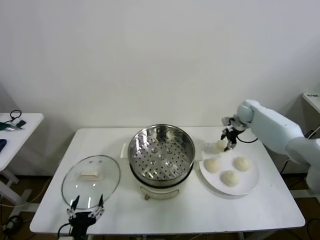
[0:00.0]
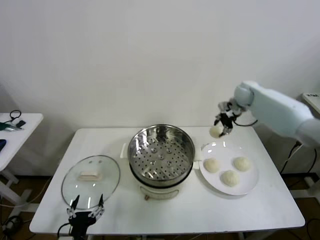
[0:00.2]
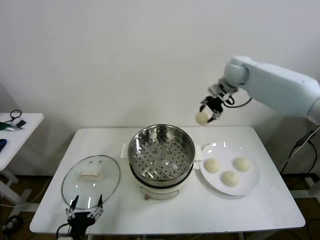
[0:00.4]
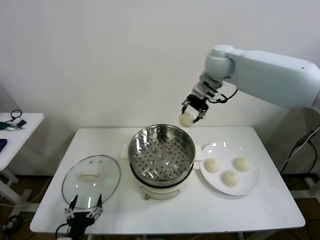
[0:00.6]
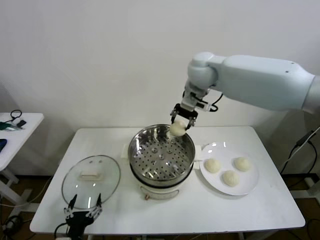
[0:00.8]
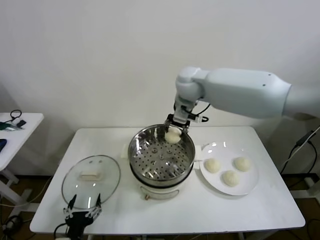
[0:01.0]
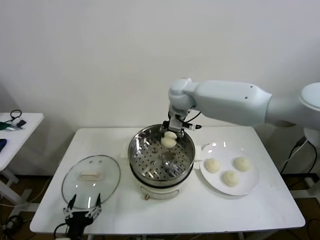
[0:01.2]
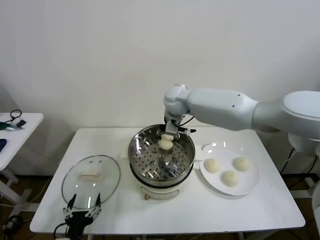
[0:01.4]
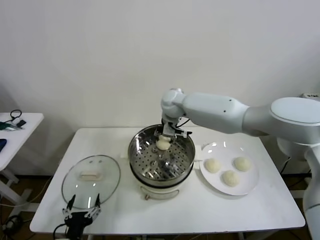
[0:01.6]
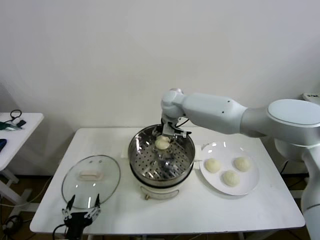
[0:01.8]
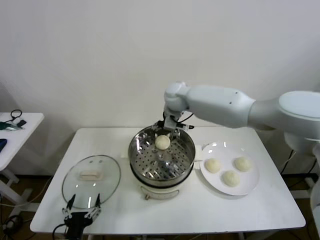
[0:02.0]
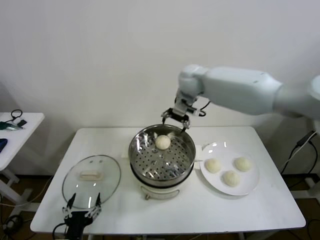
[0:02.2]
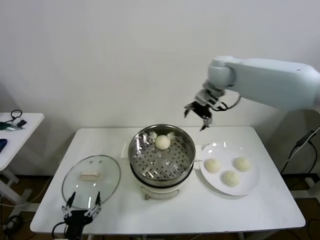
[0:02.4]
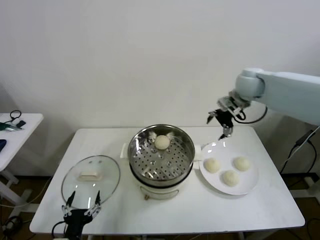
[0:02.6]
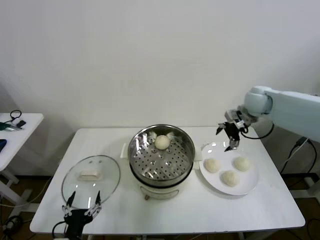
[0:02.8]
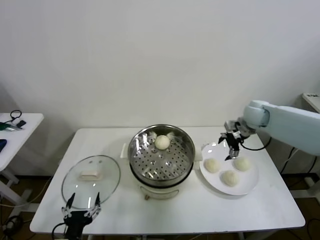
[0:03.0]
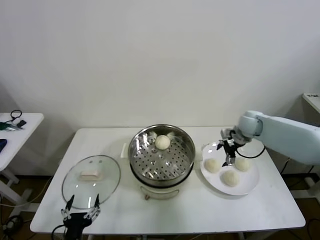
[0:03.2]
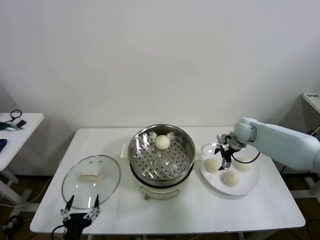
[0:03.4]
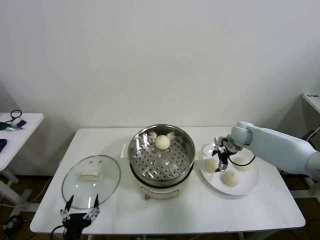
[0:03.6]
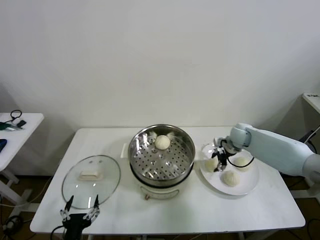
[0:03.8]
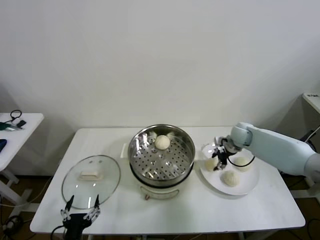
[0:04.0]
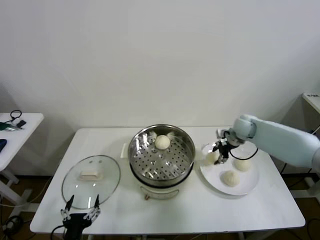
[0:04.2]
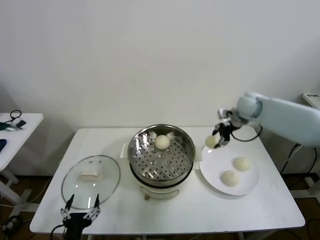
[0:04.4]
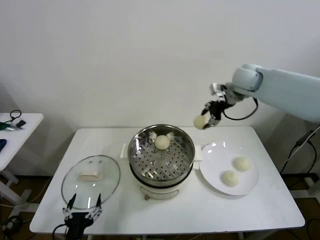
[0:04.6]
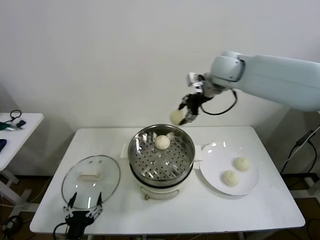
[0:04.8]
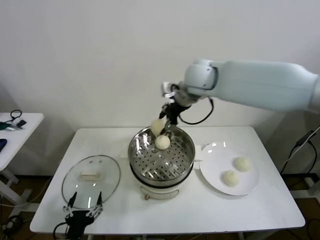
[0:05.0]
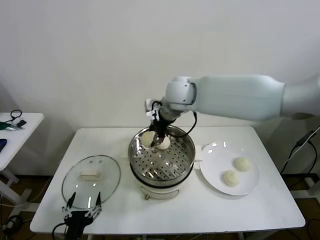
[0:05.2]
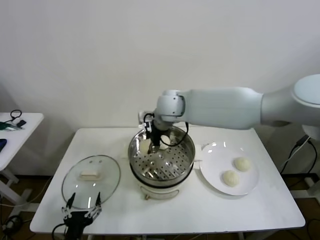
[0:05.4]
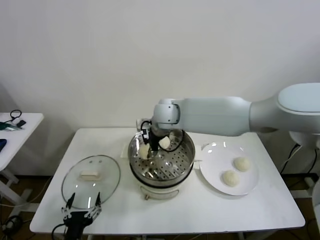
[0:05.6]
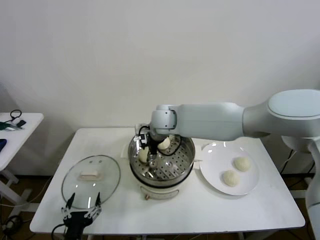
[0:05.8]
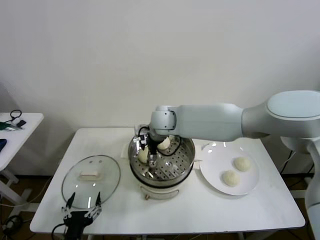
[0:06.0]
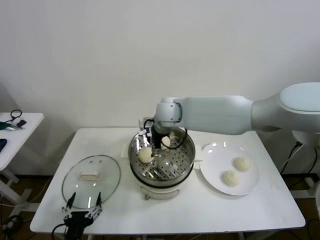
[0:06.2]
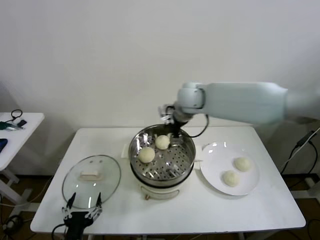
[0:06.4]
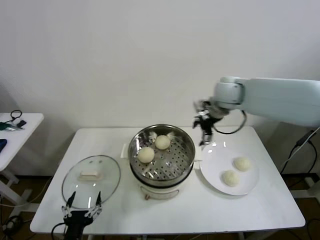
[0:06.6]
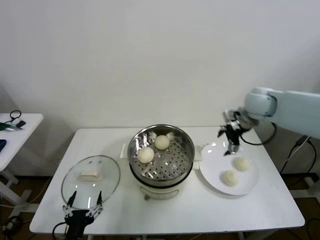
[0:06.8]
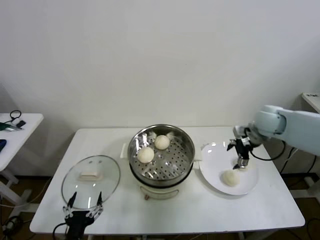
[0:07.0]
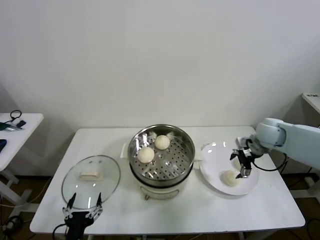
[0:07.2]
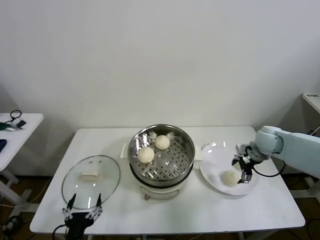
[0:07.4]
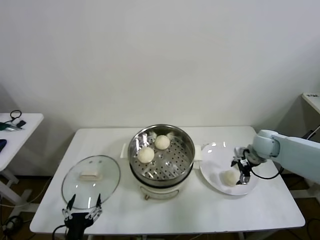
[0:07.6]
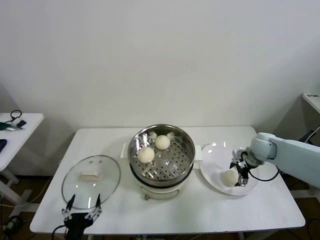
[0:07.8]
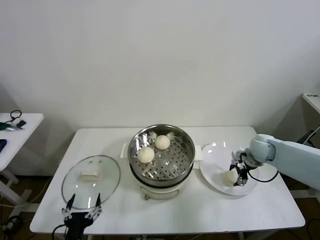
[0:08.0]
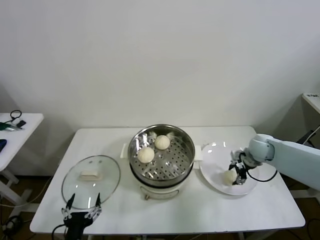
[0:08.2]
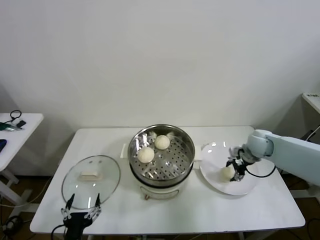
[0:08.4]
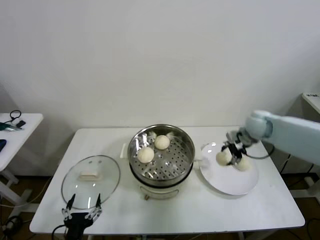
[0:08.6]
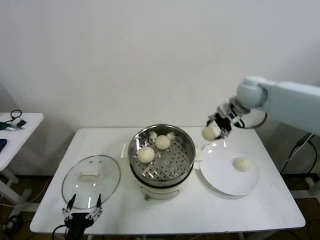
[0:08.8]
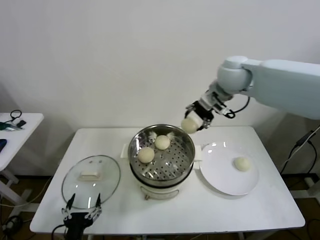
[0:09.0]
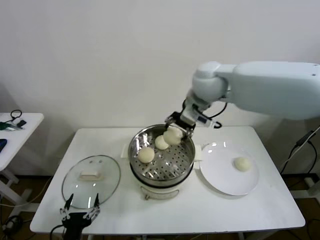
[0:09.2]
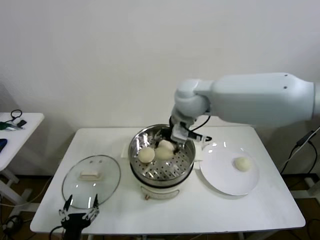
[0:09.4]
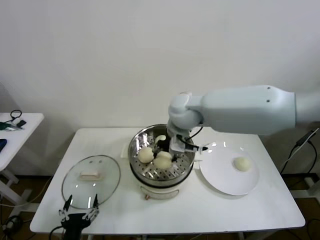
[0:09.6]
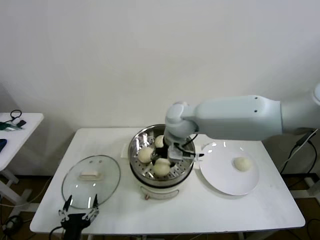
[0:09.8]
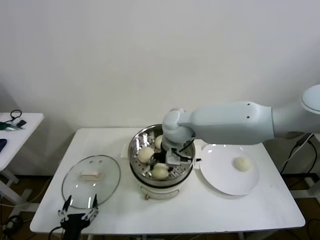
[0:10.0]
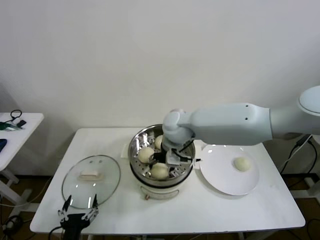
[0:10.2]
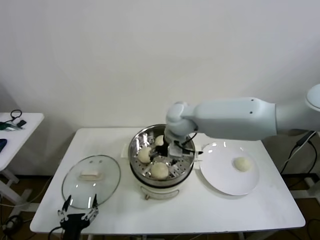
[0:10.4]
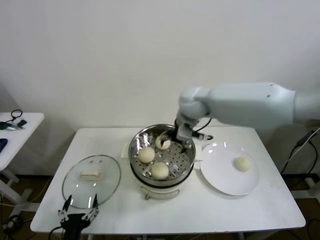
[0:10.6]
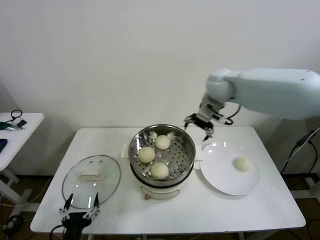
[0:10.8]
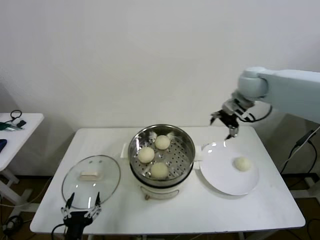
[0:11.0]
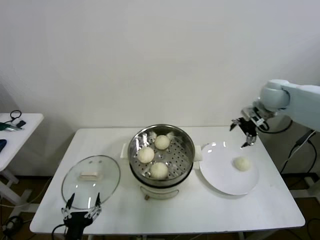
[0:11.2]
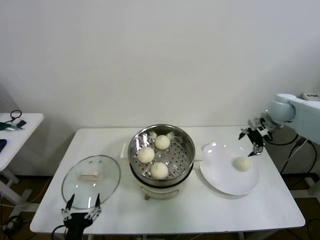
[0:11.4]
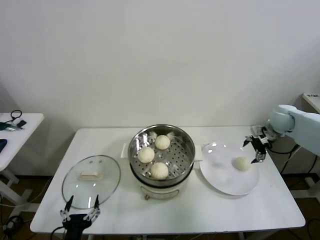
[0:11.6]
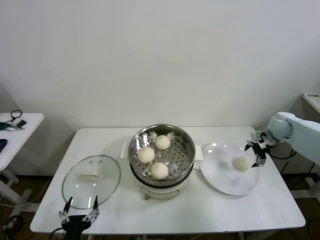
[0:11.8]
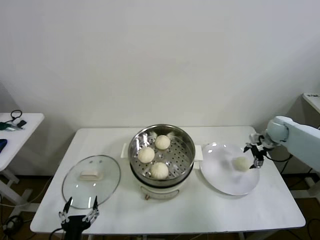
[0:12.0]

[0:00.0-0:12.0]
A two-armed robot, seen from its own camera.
Task of the whole recording: take steamed baozi put them in steamer then cover it.
Step, 0:00.0 to 0:02.0: Place the baozi on the steamer with right gripper.
Step, 0:02.2 to 0:04.0: Grasp the baozi in the plate with right gripper.
Step, 0:04.2 to 0:06.0: Place the baozi on the steamer with right gripper.
Step, 0:06.4 to 0:08.2: Grasp the baozi in the plate with right gripper.
Step, 0:08.6 to 0:10.2: Place the baozi on the steamer with right gripper.
0:00.0 to 0:01.6: The right gripper moves to the left, roughly 30 cm.
0:01.6 to 0:03.0: The right gripper shifts approximately 30 cm to the right, and opens its fingers.
0:03.0 to 0:04.4: The right gripper goes about 10 cm upward, and closes up.
0:04.4 to 0:06.0: The right gripper moves to the left, some 30 cm, and opens.
0:06.0 to 0:07.6: The right gripper heads to the right, covering about 35 cm.
0:07.6 to 0:09.0: The right gripper is displaced upward and to the left by roughly 30 cm, and closes its fingers.
0:09.0 to 0:10.4: The right gripper goes some 20 cm downward and to the left, and opens up.
0:10.4 to 0:12.0: The right gripper heads to the right, covering roughly 40 cm.

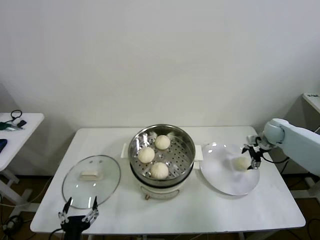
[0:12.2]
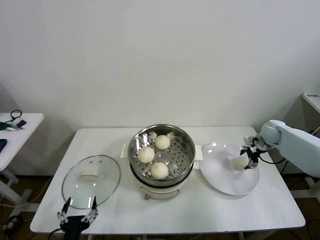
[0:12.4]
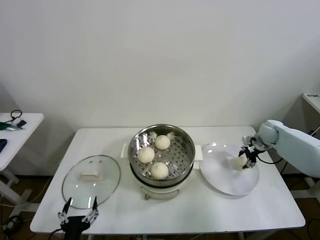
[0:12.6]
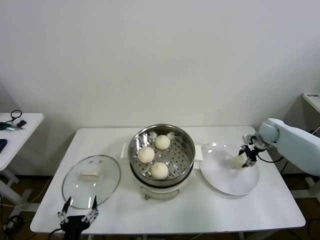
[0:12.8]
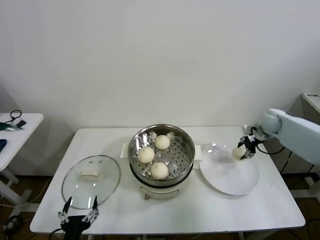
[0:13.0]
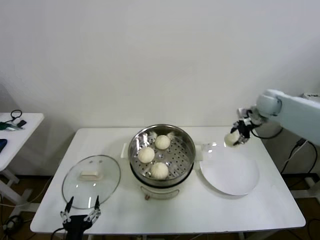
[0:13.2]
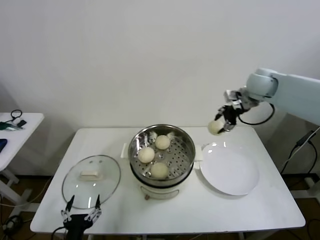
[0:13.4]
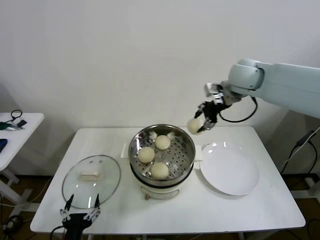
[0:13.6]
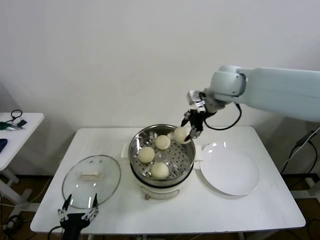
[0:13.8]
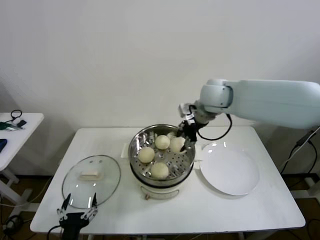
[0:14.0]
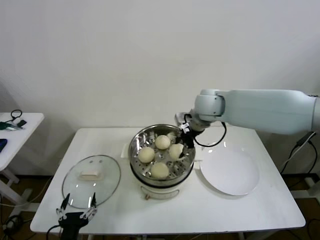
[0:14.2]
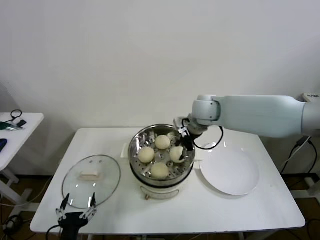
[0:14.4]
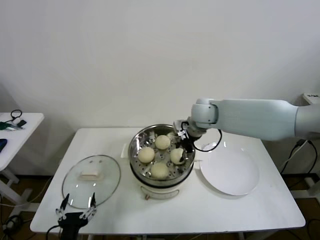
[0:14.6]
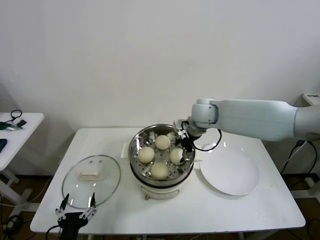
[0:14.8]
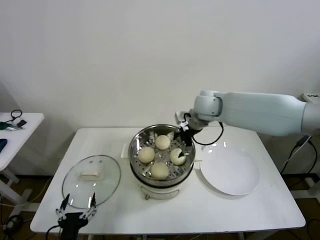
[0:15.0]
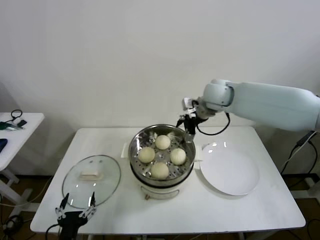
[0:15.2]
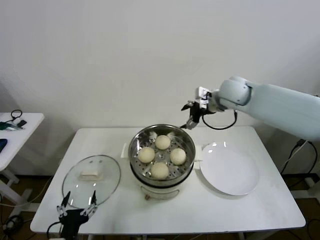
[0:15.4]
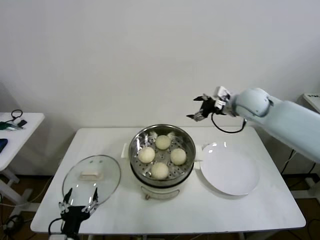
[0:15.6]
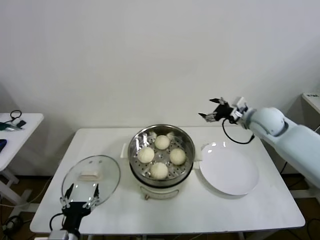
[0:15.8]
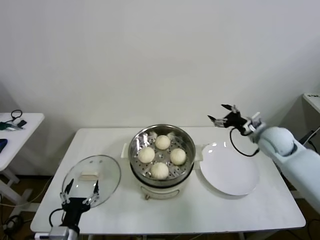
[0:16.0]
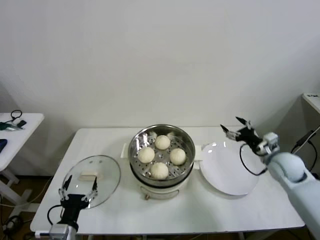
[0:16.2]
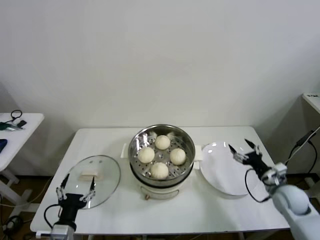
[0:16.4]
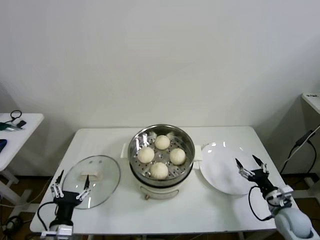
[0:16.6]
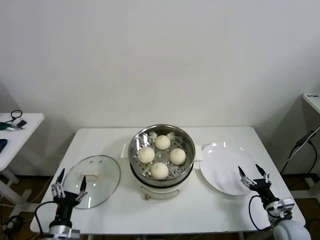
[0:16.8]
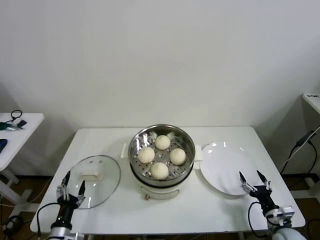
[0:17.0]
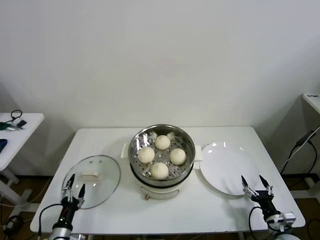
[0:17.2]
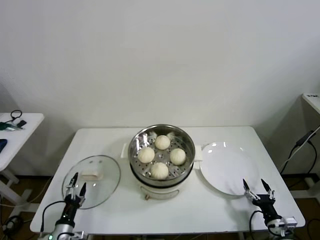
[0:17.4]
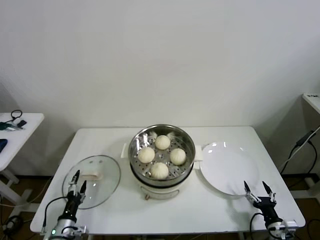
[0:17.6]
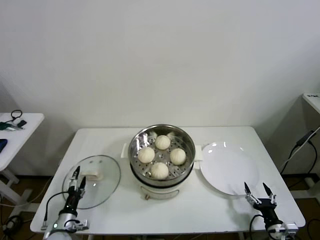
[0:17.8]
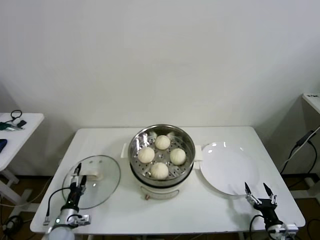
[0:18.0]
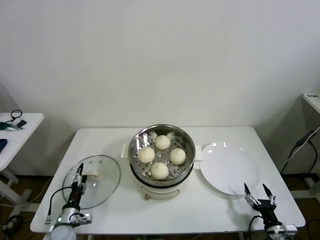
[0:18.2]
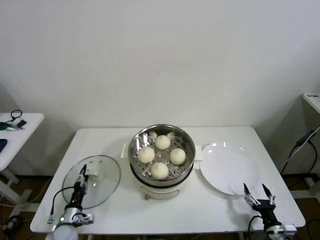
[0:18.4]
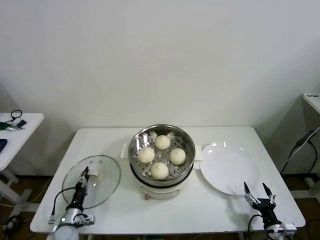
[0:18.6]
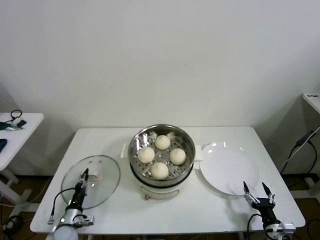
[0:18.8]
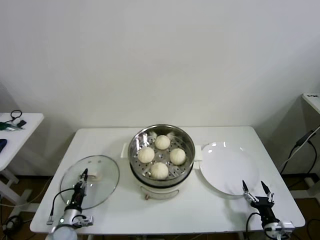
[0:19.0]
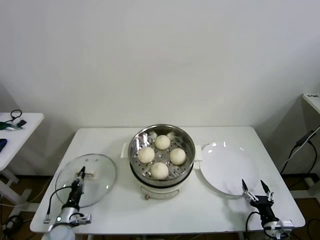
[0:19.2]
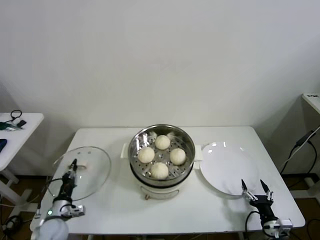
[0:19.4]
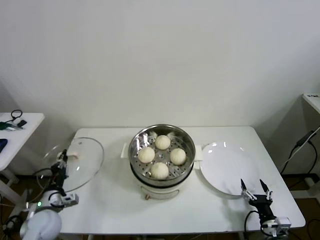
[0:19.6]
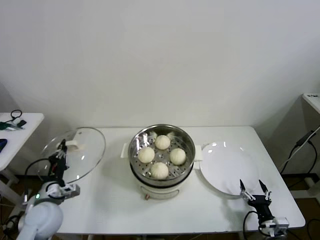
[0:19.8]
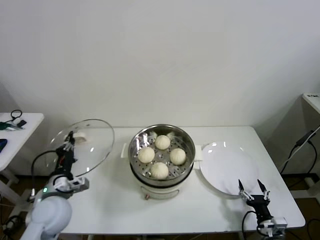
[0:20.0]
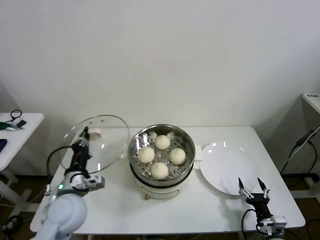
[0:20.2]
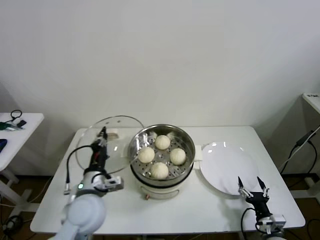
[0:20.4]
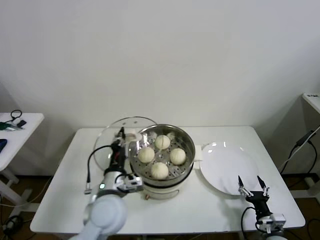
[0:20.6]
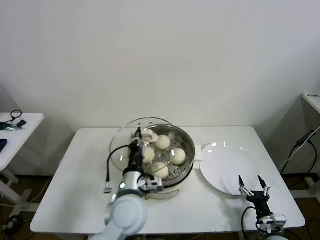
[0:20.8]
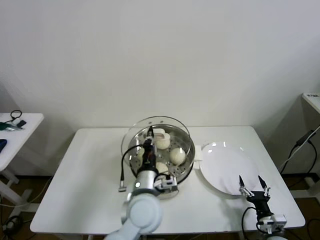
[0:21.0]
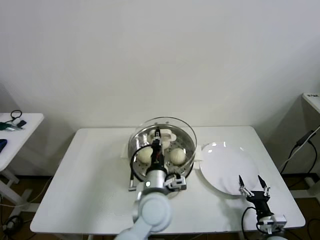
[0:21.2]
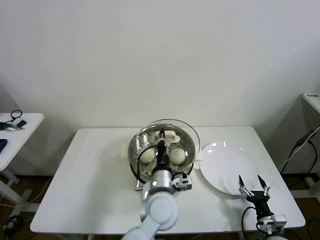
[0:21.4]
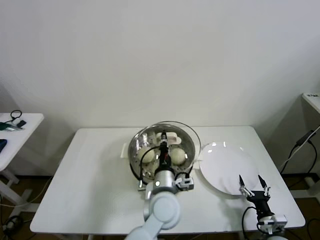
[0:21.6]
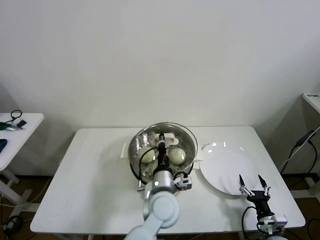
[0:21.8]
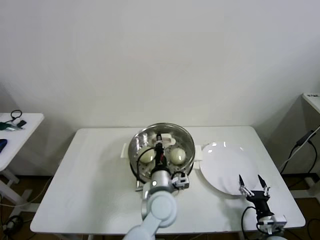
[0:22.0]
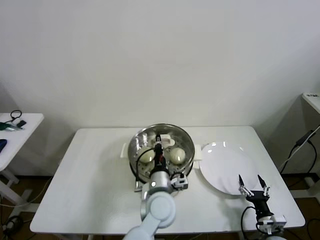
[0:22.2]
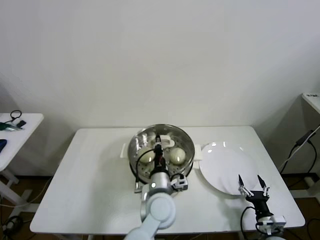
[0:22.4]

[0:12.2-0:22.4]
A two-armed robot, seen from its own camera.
Task of the whole recording: take steamed baozi put them in steamer then cover it.
Step, 0:13.0 to 0:14.8: Place the baozi on the steamer with right gripper.
Step, 0:15.0 to 0:19.0: Grasp the pot lid with left gripper.
0:12.2 to 0:13.6: The right gripper moves upward and to the left, approximately 35 cm, and closes.
0:13.6 to 0:15.2: The right gripper goes about 10 cm downward and to the left, and opens its fingers.
0:15.2 to 0:16.6: The left gripper moves forward, about 5 cm, while the right gripper travels downward, backward and to the right by roughly 50 cm.
0:16.6 to 0:18.0: The left gripper travels downward, forward and to the left by roughly 15 cm. The right gripper moves backward and downward, about 15 cm.
0:18.0 to 0:19.4: The left gripper closes up.
0:19.4 to 0:21.0: The left gripper heads to the right and upward, covering some 35 cm.
0:21.0 to 0:22.4: The left gripper travels to the right by roughly 5 cm.
